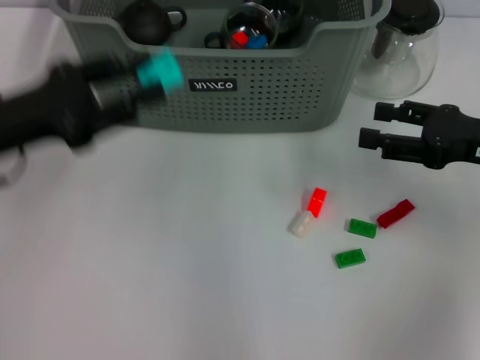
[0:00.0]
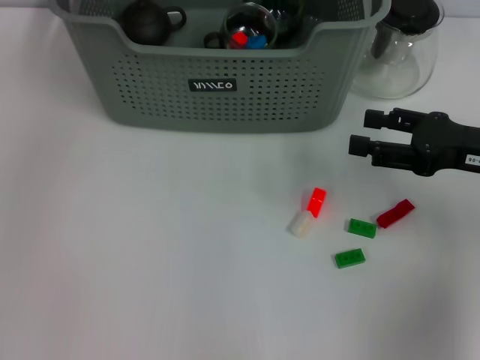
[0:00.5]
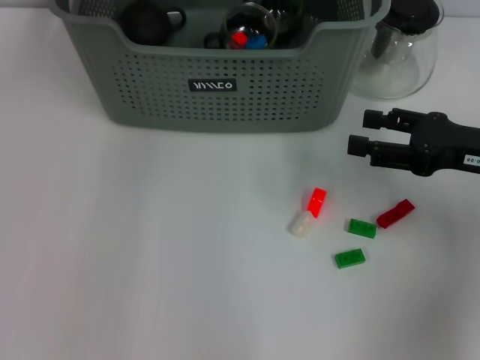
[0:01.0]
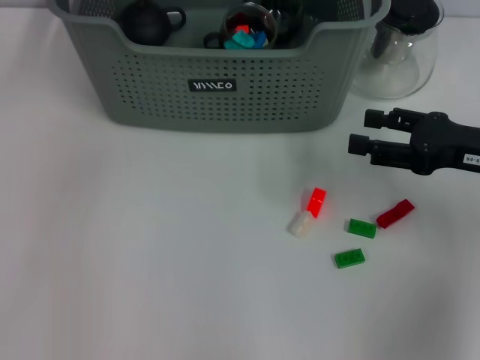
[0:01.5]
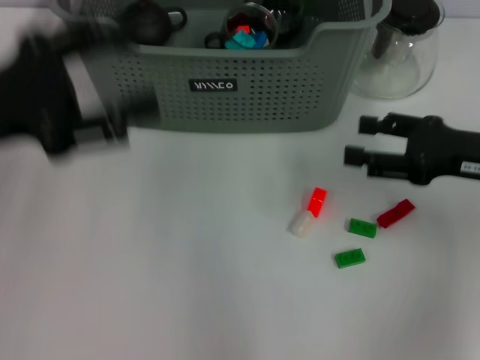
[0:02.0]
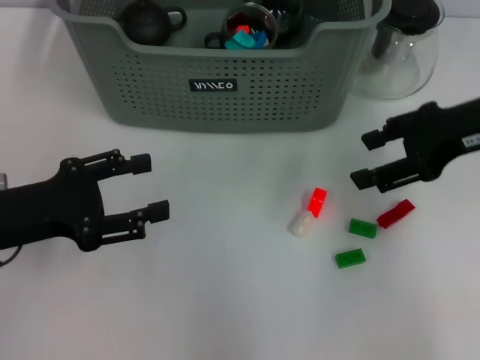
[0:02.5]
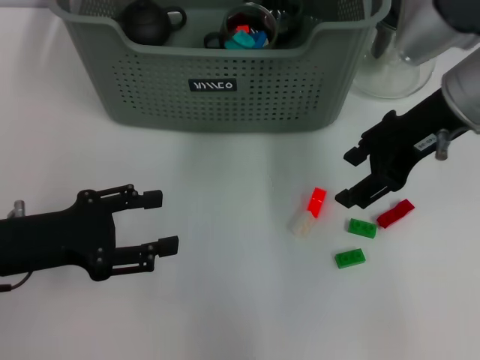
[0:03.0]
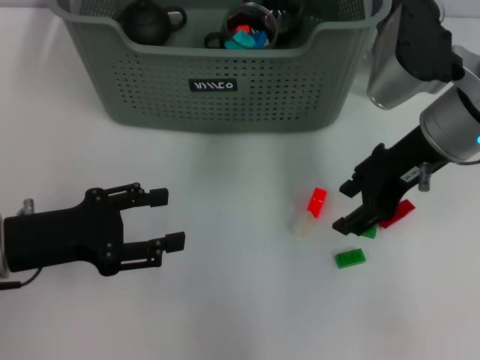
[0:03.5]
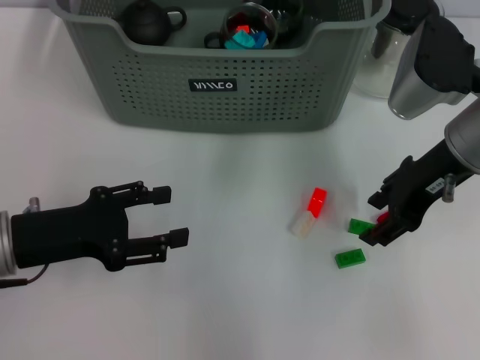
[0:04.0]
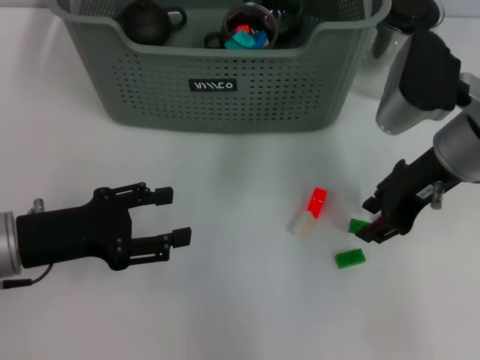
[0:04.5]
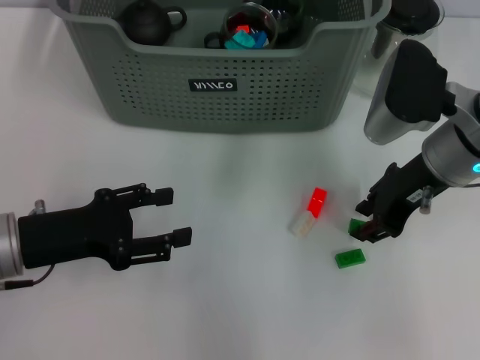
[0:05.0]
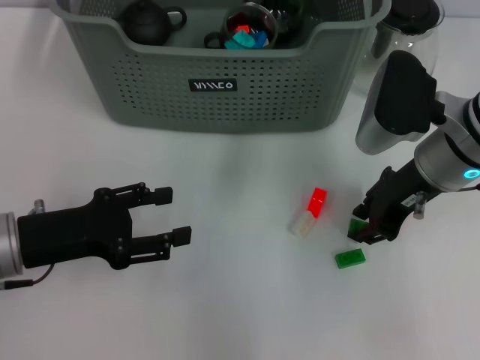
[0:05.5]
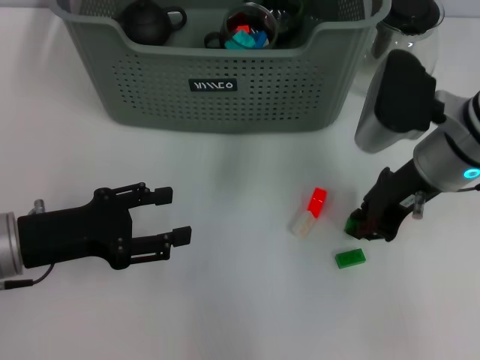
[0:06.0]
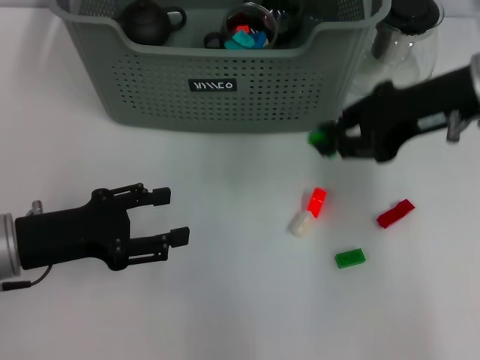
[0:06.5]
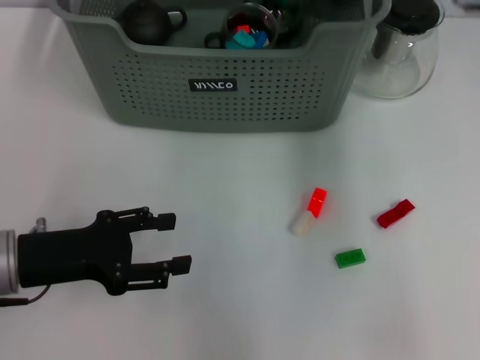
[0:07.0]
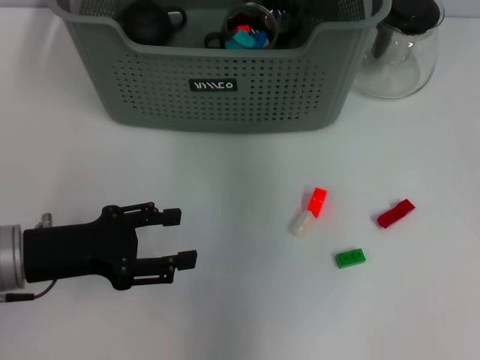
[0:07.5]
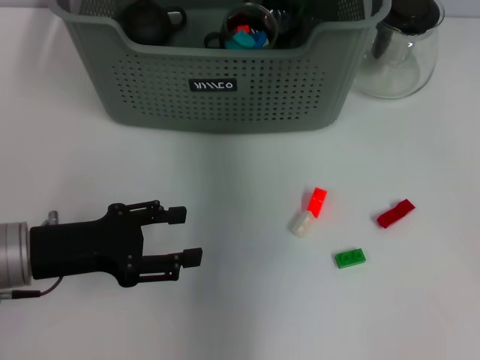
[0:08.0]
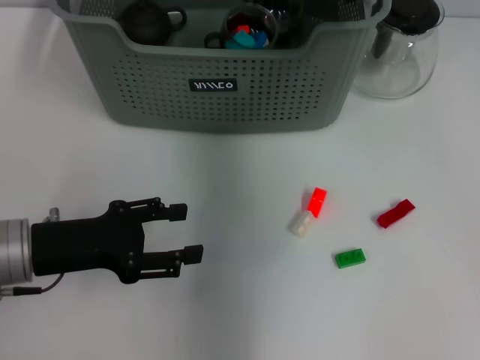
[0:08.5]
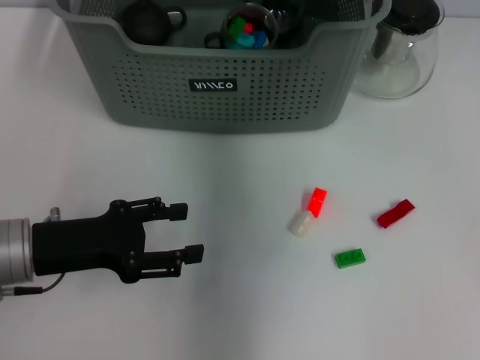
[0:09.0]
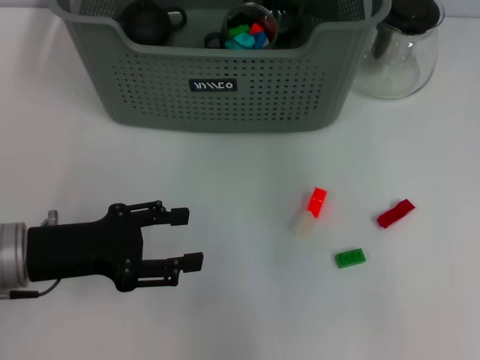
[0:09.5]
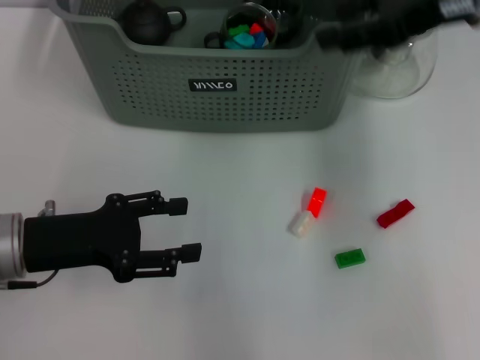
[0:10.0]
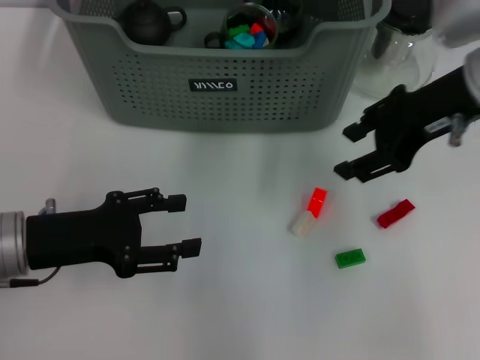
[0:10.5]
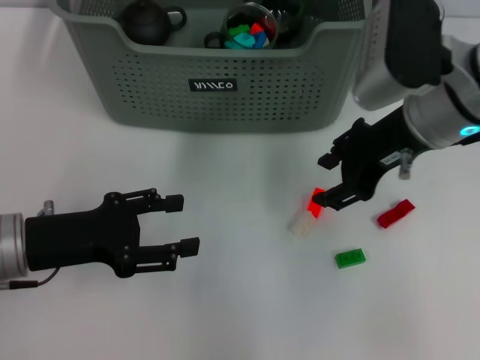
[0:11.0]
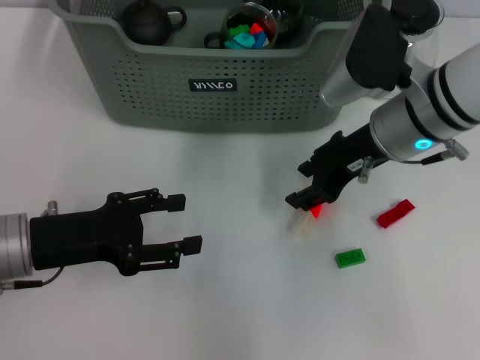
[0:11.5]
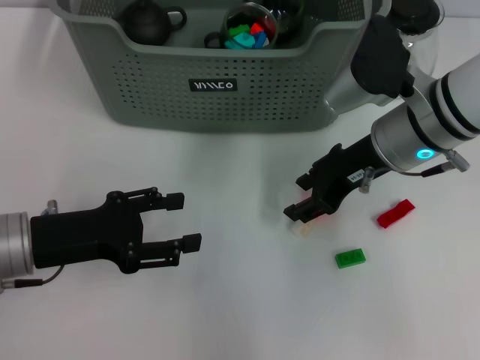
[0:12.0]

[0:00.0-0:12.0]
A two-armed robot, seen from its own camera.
Task of the whole recording: pick up the teacup on the table and place it into the storage bin, pick up the block on the table and place it into the storage bin.
Step, 0:00.0 to 0:01.5: Place the light blue block in the storage box with left gripper.
Step, 0:02.0 to 0:05.5: Grasp the green block with right gripper.
Step, 0:06.0 to 0:09.0: Place the green block in the storage box with right gripper.
0:00.0 to 0:02.0: The left gripper moves some 20 cm forward and comes back, and opens its fingers.
0:02.0 to 0:04.0: The right gripper goes roughly 10 cm to the left and upward, while the left gripper is displaced downward by some 10 cm.
0:04.0 to 0:06.0: The right gripper closes.
0:06.0 to 0:08.0: The right gripper moves forward, to the left and upward, roughly 20 cm.
0:08.0 to 0:10.0: The right gripper goes about 20 cm to the right and backward, and opens its fingers.
0:10.0 to 0:12.0: The right gripper shifts about 15 cm downward and to the left.

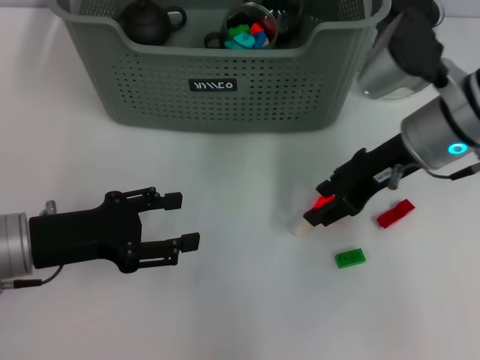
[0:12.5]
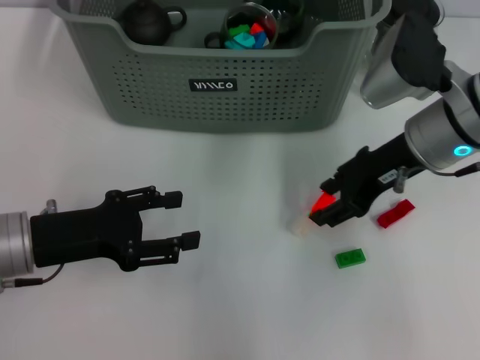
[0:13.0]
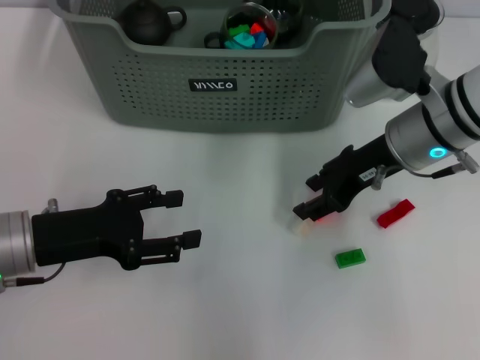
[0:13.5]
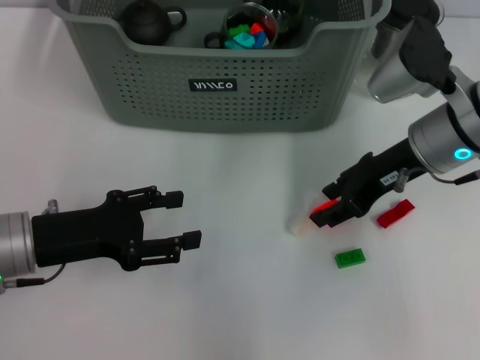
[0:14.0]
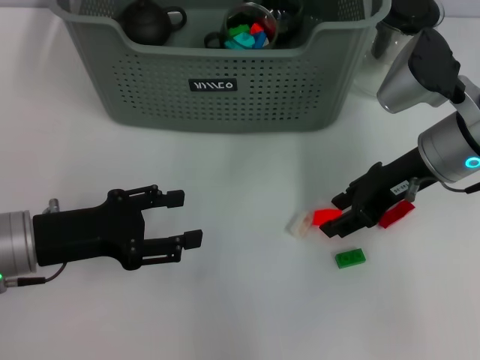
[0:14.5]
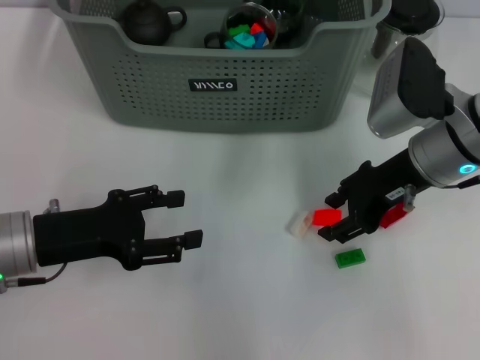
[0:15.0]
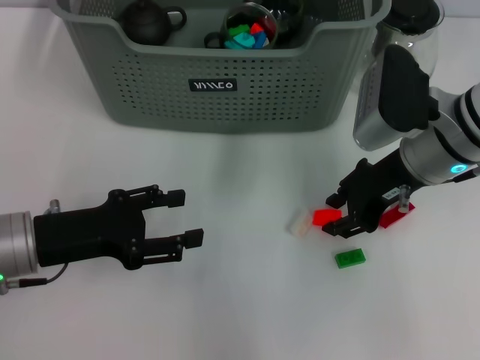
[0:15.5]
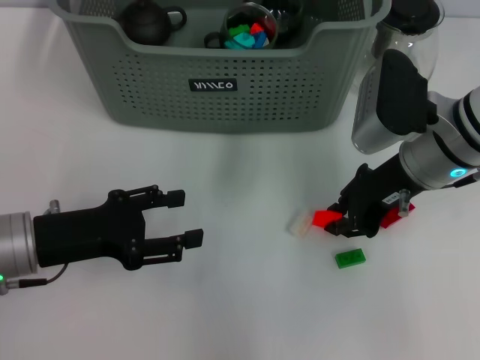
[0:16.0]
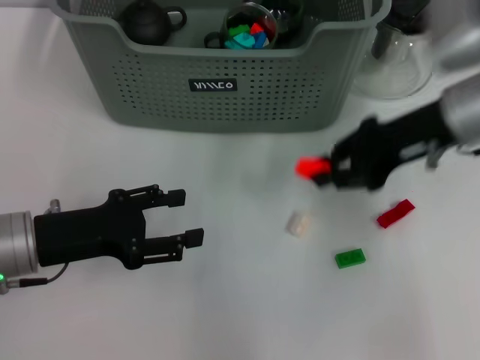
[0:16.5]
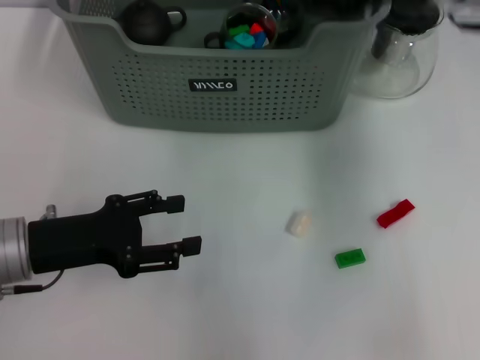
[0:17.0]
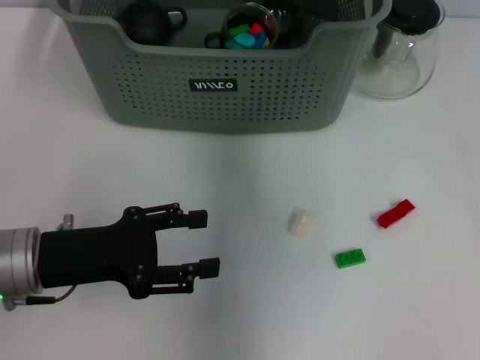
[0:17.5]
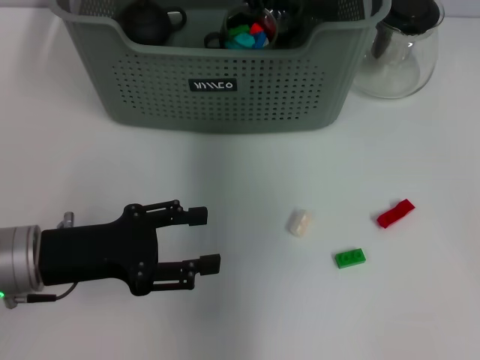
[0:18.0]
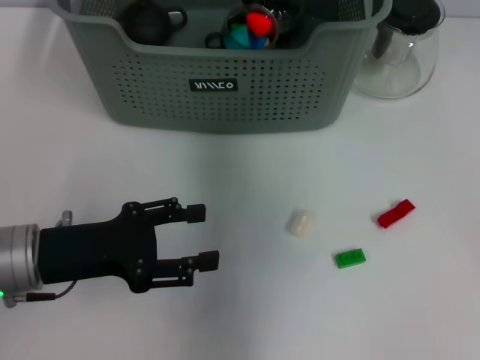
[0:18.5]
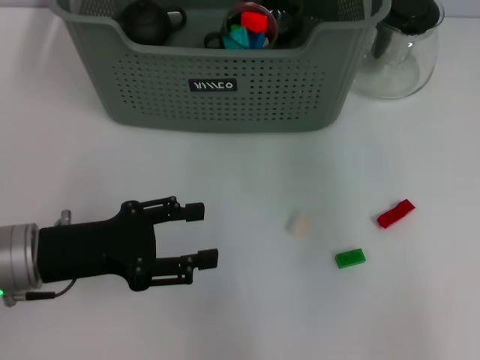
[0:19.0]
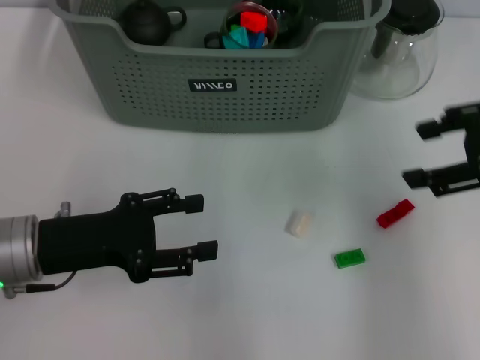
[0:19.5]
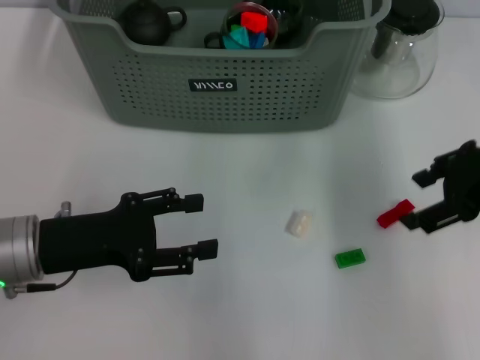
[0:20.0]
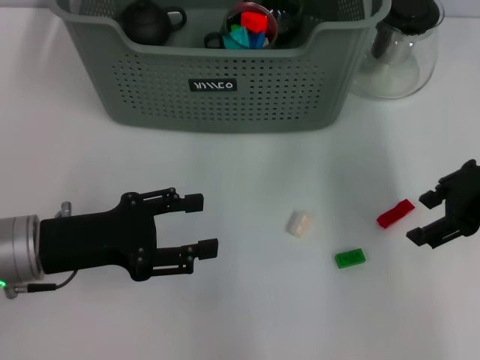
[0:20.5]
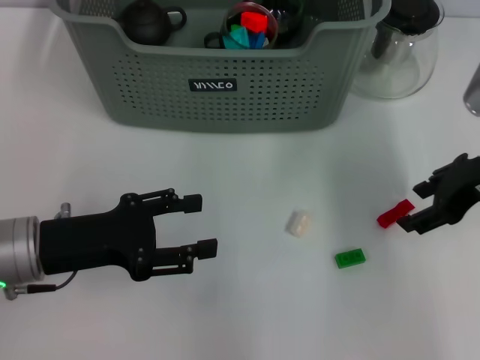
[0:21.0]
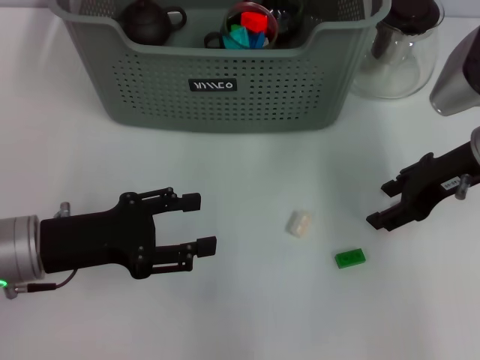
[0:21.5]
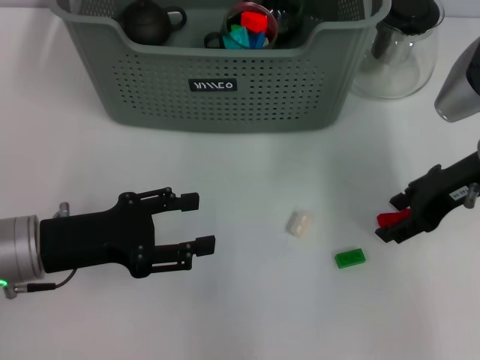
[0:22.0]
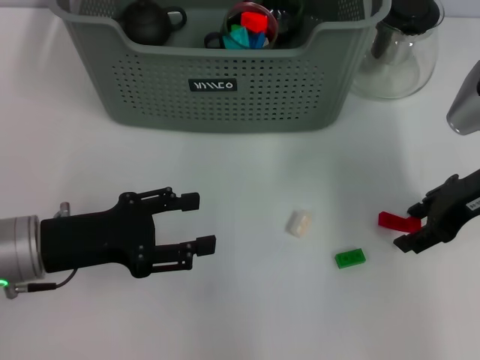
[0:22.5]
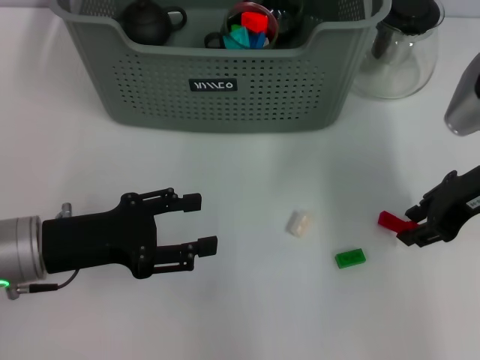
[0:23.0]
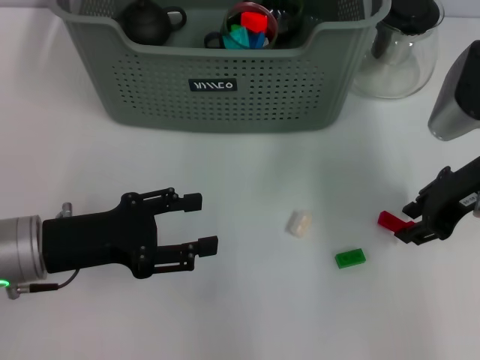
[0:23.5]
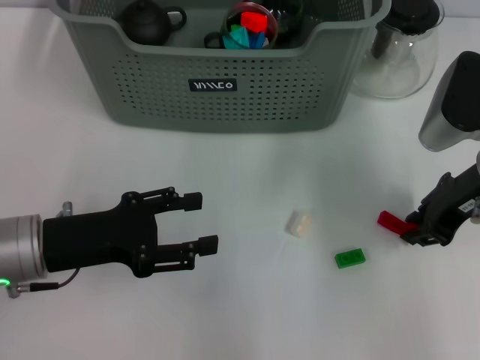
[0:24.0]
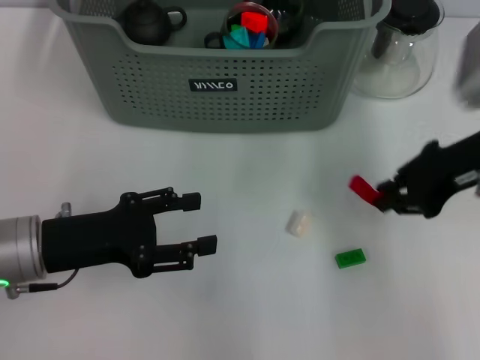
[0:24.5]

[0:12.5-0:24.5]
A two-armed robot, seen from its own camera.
Task of the whole recording: pick up the teacup on the table and place it into the storage bin, pick up the block on the table and place it into the storage bin.
Step, 0:12.5 to 0:16.0: Grasp the orange block with right gripper.
Step, 0:16.5 to 0:19.0: Place the orange block in the storage box with right gripper.
Step, 0:19.5 to 0:24.0: Grasp the red block with right gripper.
0:12.5 to 0:14.5: The grippers move only a little.
0:14.5 to 0:16.5: The right gripper closes up.
0:16.5 to 0:18.5: The right gripper moves to the left, forward and upward, approximately 20 cm.
0:18.5 to 0:20.5: The right gripper is displaced to the right and backward by roughly 25 cm, and opens its fingers.
0:20.5 to 0:22.5: There are only small adjustments of the grippers.
0:22.5 to 0:24.5: The right gripper closes.

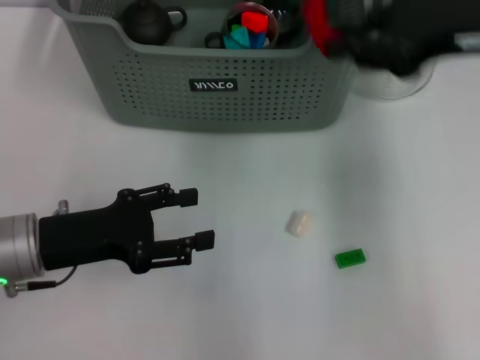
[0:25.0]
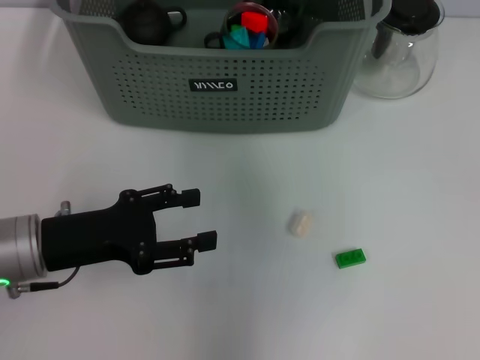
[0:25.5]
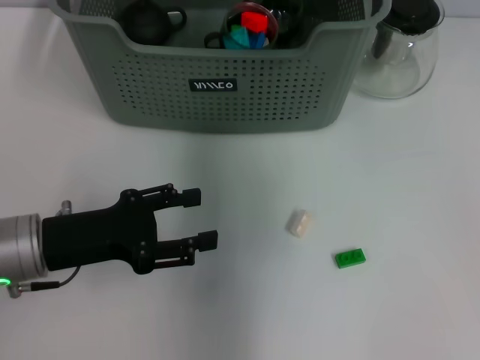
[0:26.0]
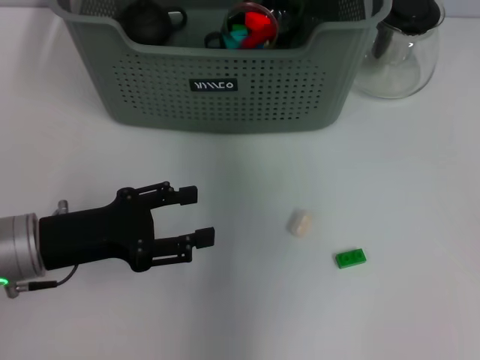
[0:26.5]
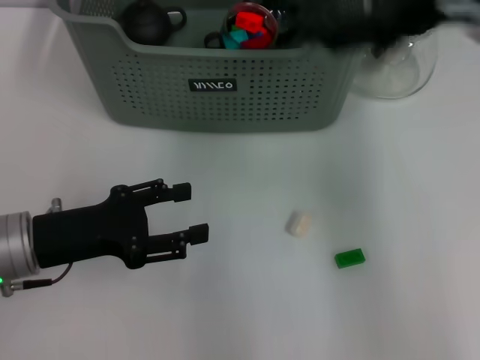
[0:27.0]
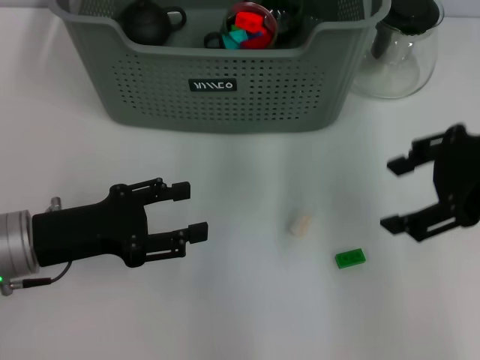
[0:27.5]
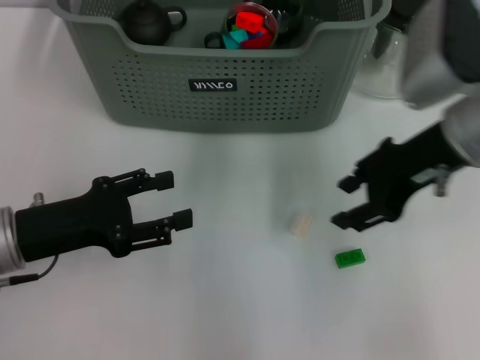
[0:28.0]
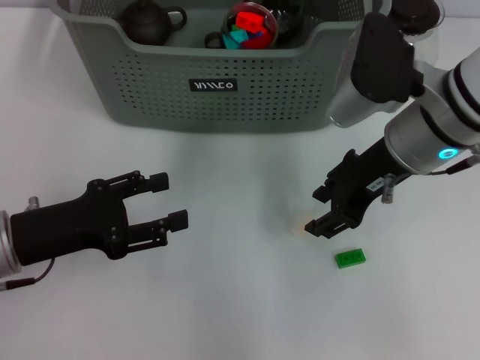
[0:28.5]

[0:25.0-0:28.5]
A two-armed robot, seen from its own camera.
Task of the whole recording: pick up the teacup on the table and place it into the storage bin, pick up the block on the table and place it into the storage bin.
Step, 0:25.0 to 0:27.0: Place the red block in the storage box with right gripper.
0:25.0 to 0:27.0: The right gripper moves some 15 cm to the left and comes back, and opens its fingers.
0:27.0 to 0:28.5: The right gripper goes some 15 cm downward and to the left.
